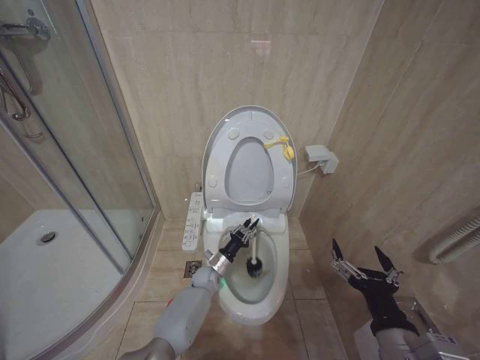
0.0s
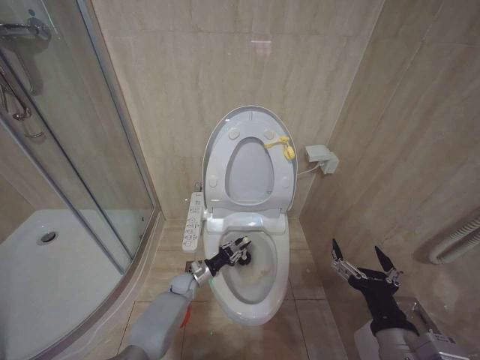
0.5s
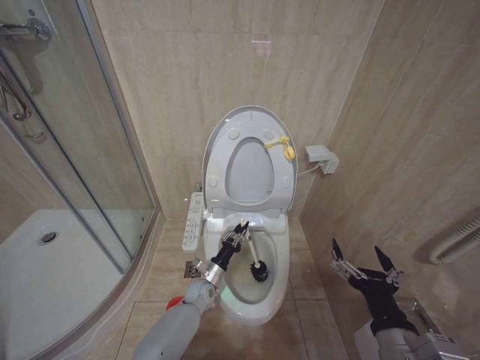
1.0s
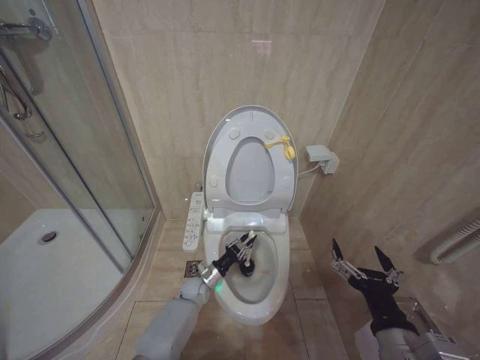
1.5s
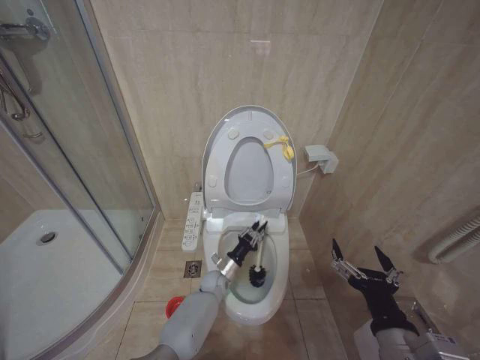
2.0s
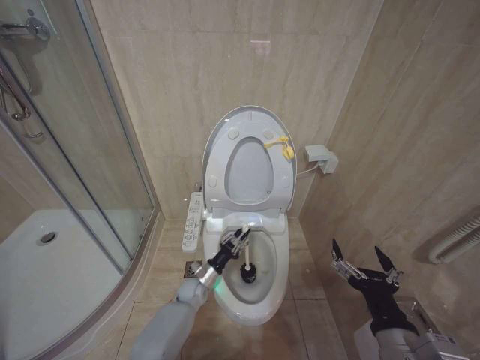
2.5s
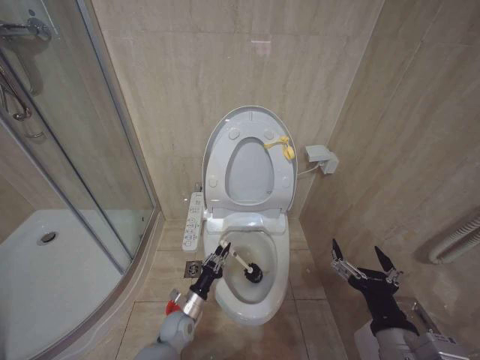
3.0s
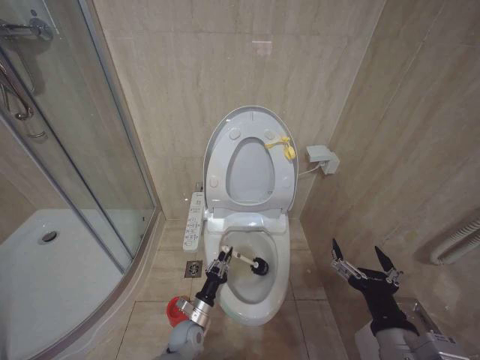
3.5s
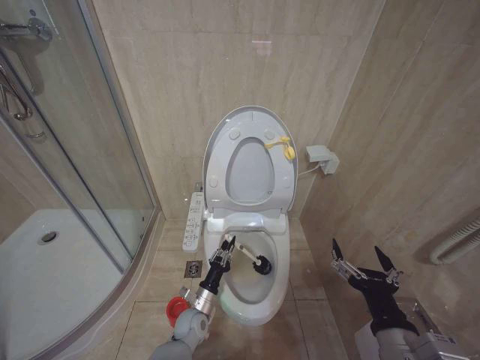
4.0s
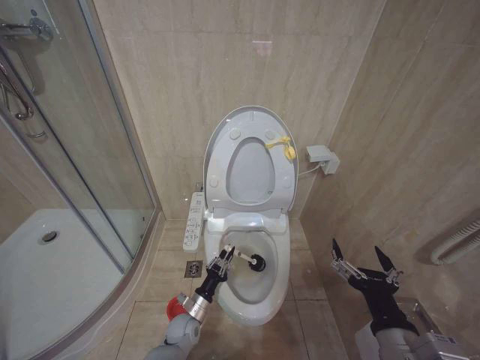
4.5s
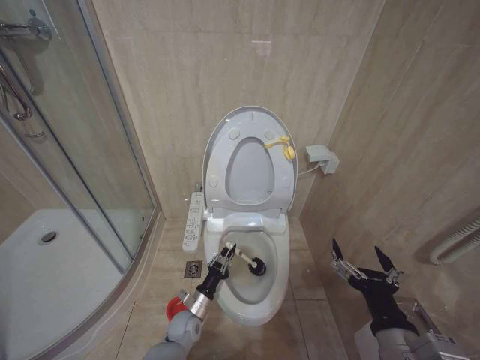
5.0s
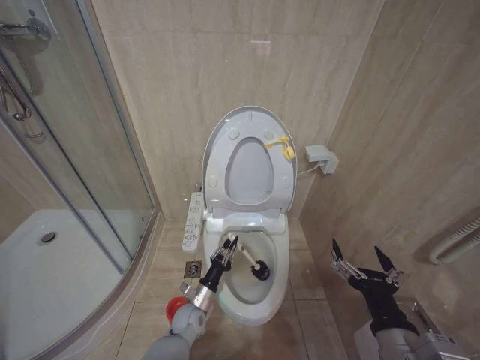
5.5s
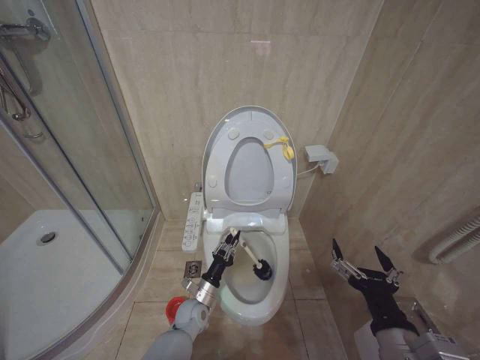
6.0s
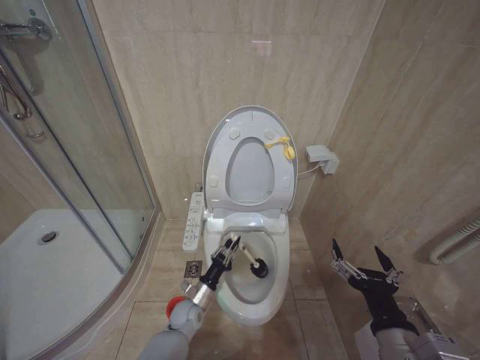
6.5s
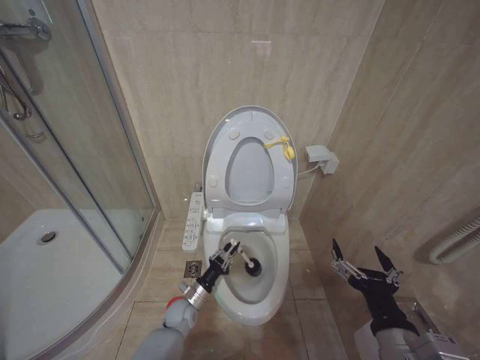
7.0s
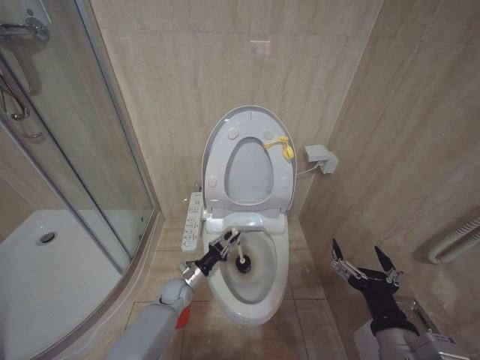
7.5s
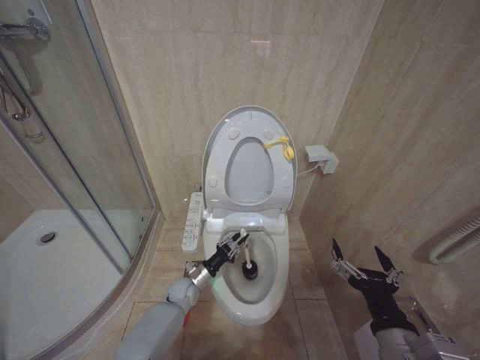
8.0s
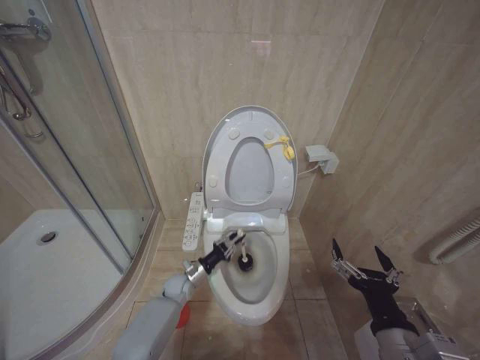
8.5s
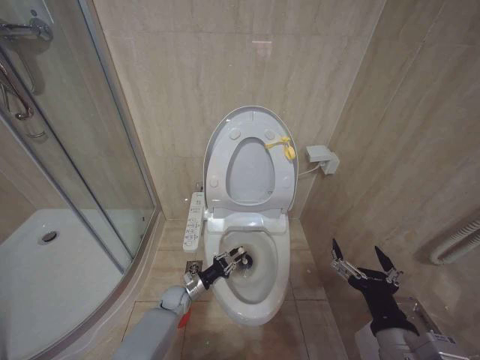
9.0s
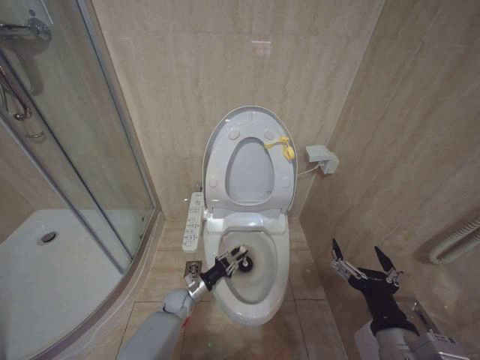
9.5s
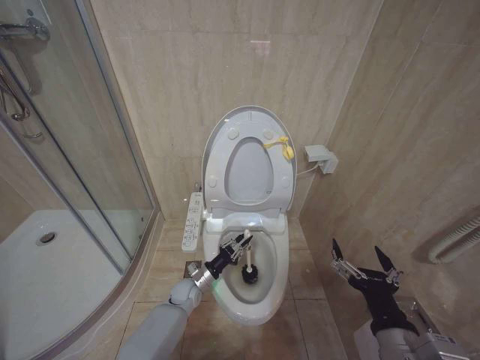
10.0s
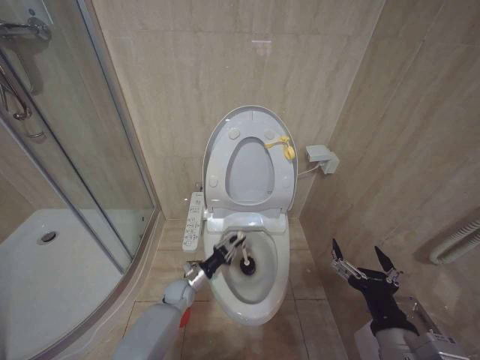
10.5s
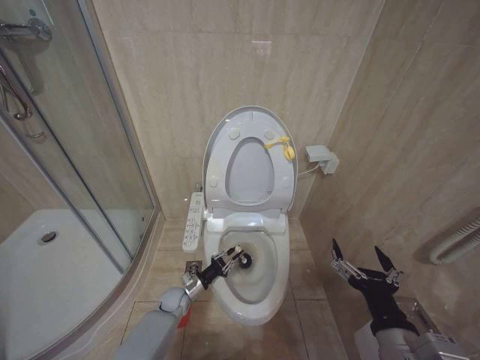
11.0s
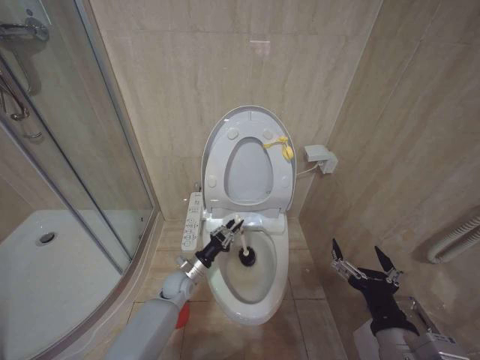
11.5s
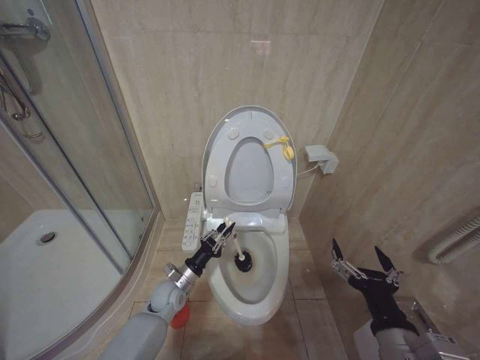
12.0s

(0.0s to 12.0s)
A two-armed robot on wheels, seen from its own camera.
Task of the whole recording: Open the toilet lid, clean the toilet bowl with a toilet brush, close the toilet lid, and flush.
0.0s - 2.0s: The left gripper goes to the left and returns, some 10 cm each way.
2.0s - 4.0s: The left gripper is displaced backward and to the left by roughly 15 cm.
4.0s - 6.0s: The grippers make only small movements.
6.0s - 8.0s: The left gripper moves forward, approximately 5 cm.
10.0s - 12.0s: The left gripper is displaced upward by about 5 cm.

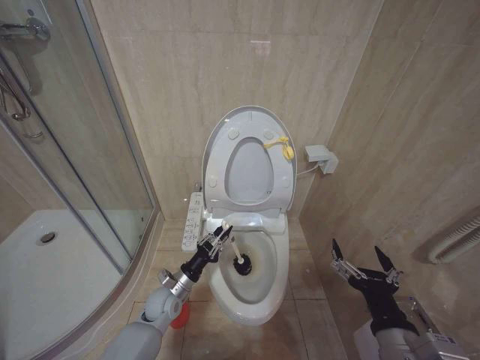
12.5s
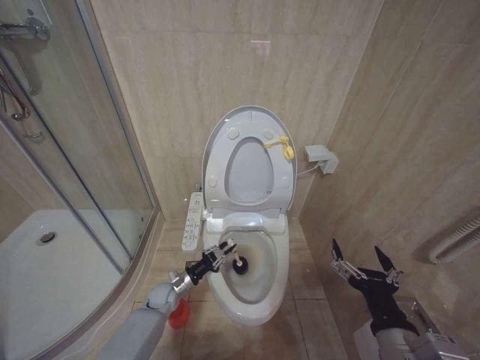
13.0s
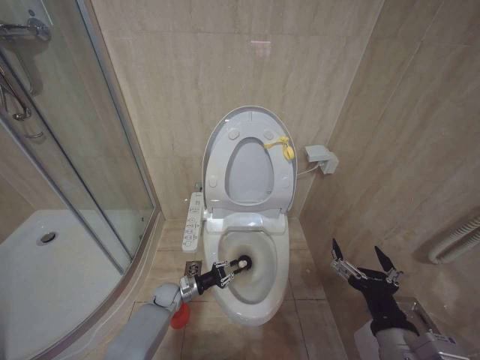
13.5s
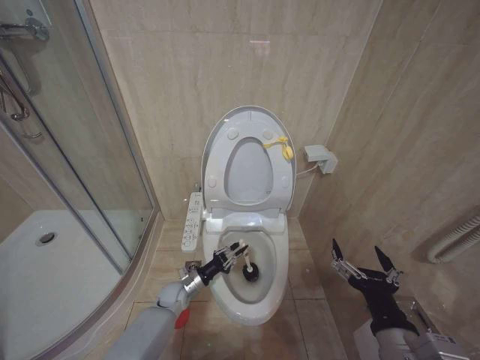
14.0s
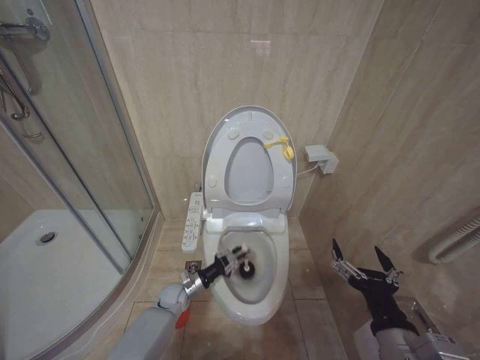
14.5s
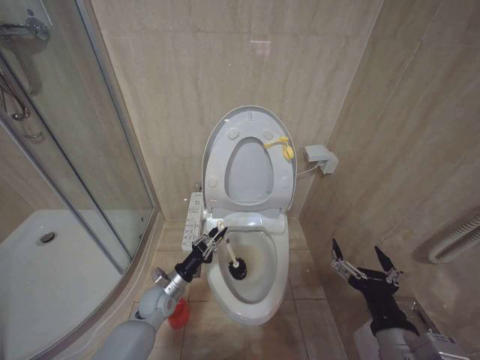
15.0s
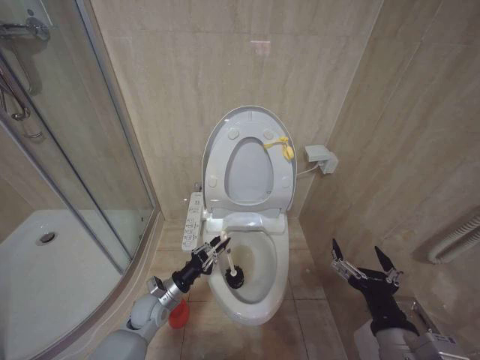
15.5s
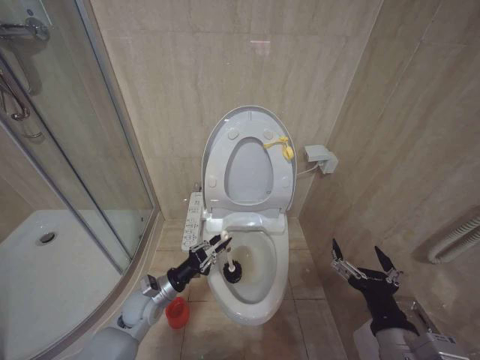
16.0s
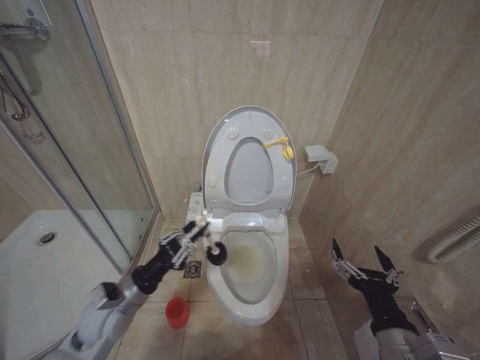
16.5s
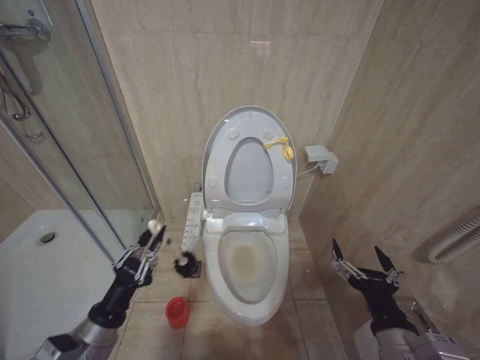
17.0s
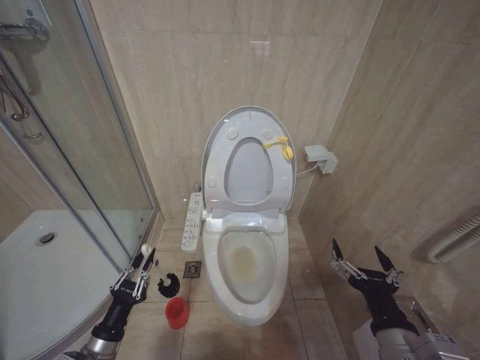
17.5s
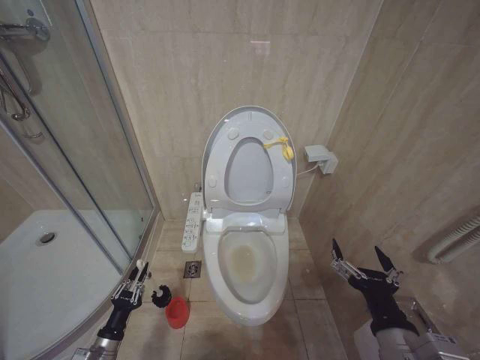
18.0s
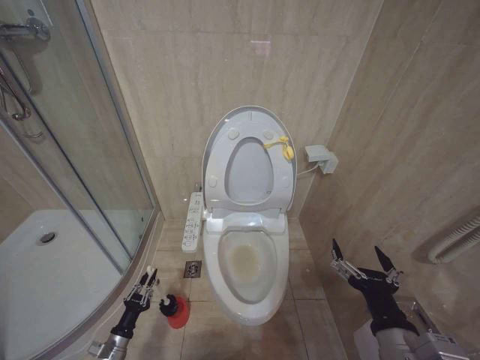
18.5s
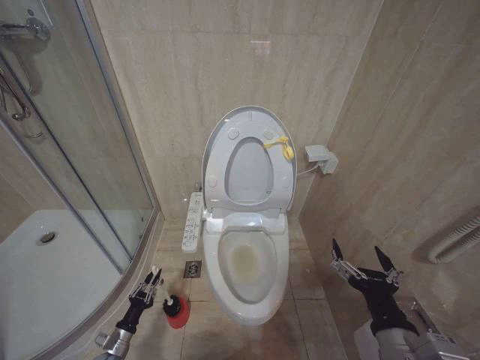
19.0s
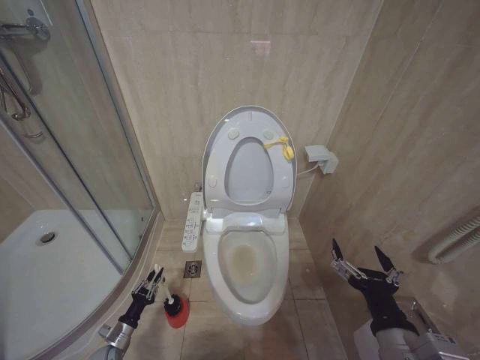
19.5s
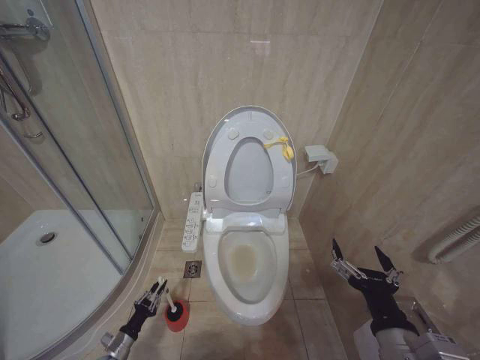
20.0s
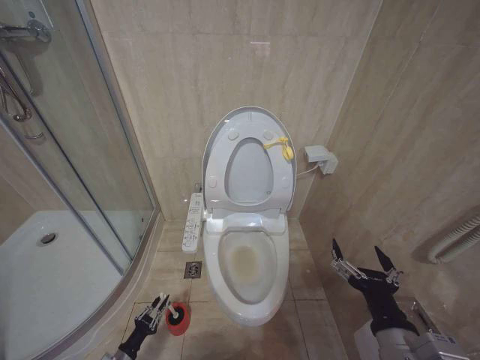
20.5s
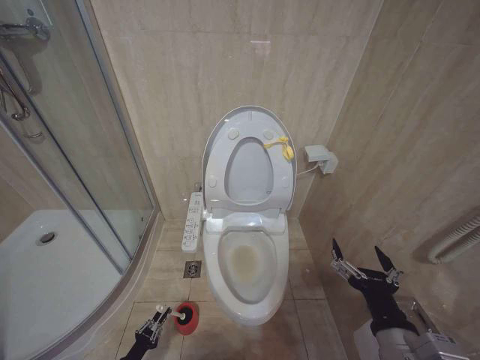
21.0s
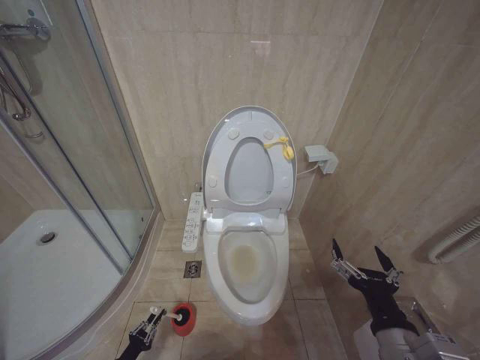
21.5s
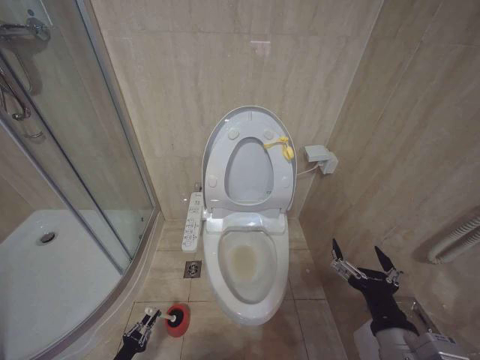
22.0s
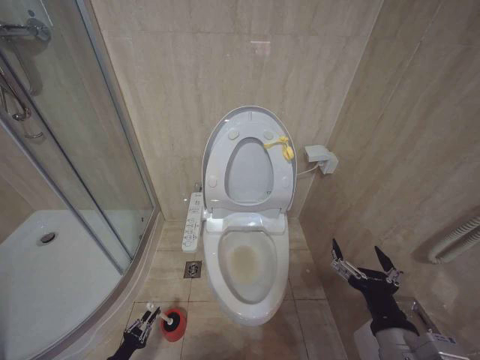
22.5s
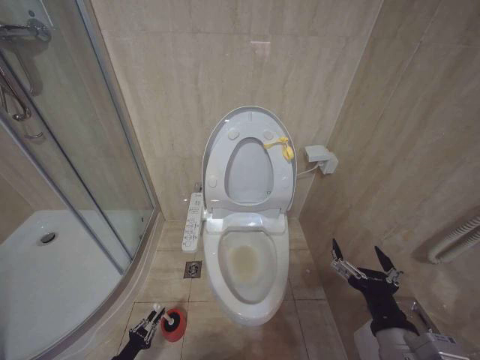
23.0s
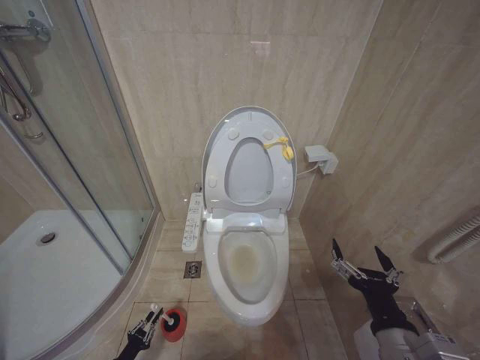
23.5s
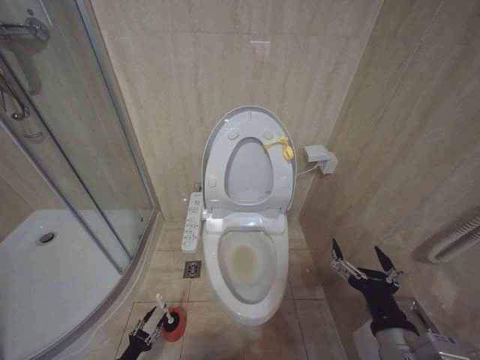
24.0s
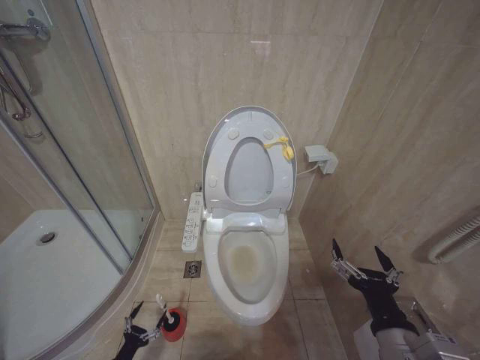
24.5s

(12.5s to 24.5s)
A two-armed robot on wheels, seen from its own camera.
Task of the whole recording: Open the toilet lid, clean the toilet bowl with a toilet brush, close the toilet lid, and flush.
12.5s - 14.5s: The left gripper heads downward and forward, covering roughly 10 cm.
14.5s - 16.5s: The left gripper travels upward and backward by about 25 cm.
16.5s - 18.5s: The left gripper goes about 30 cm downward and to the left.
18.5s - 20.5s: The left gripper heads downward, covering roughly 10 cm.

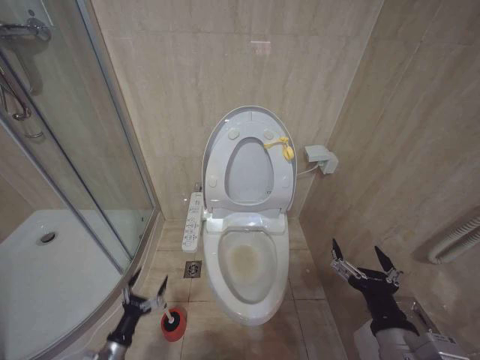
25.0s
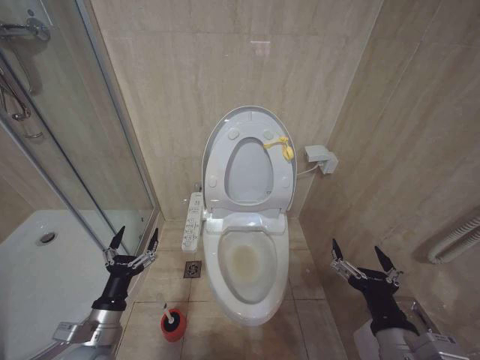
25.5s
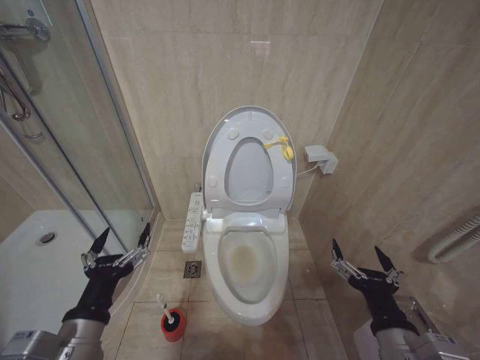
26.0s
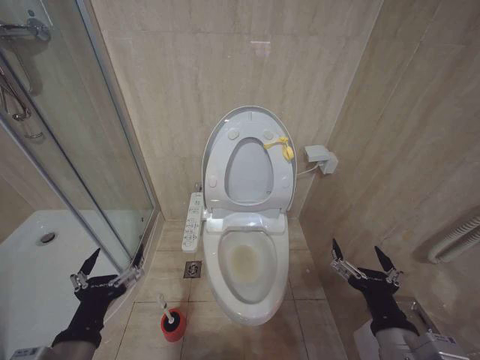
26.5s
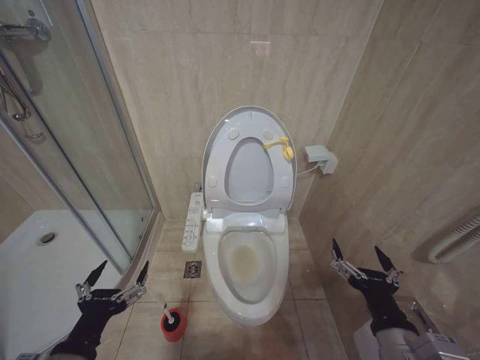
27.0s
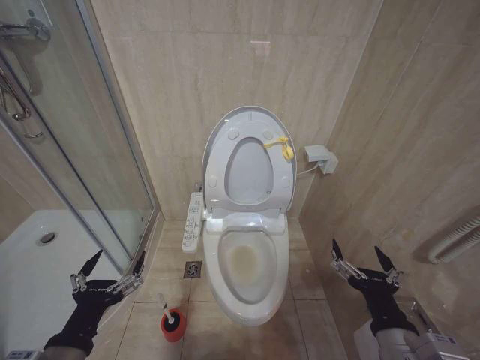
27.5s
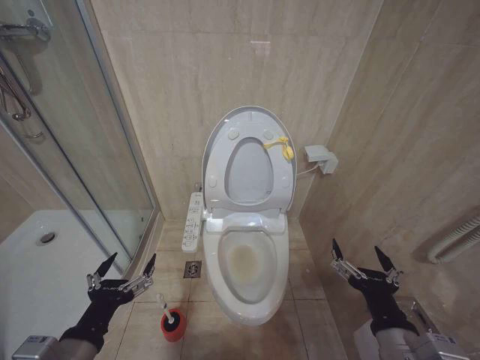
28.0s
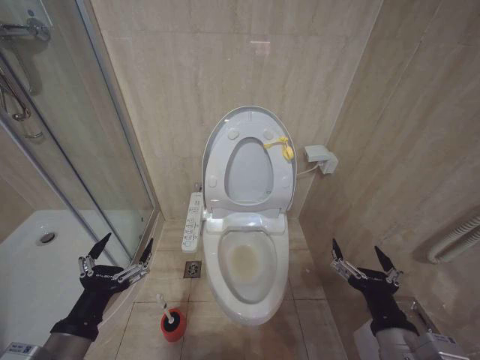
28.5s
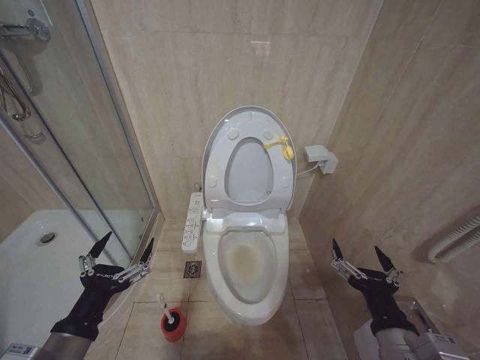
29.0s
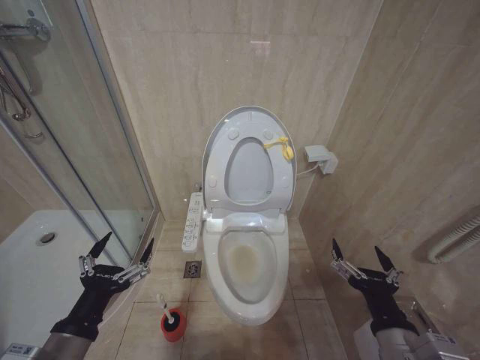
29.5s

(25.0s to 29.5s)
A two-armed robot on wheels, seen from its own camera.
Task of the whole recording: Open the toilet lid, clean the toilet bowl with a toilet brush, close the toilet lid, and flush.
25.0s - 27.0s: The left gripper travels upward by roughly 30 cm.
27.0s - 29.5s: There are only small adjustments of the grippers.
